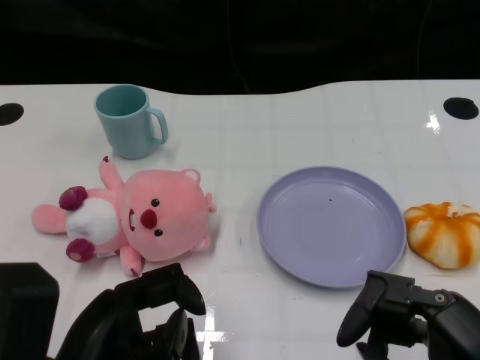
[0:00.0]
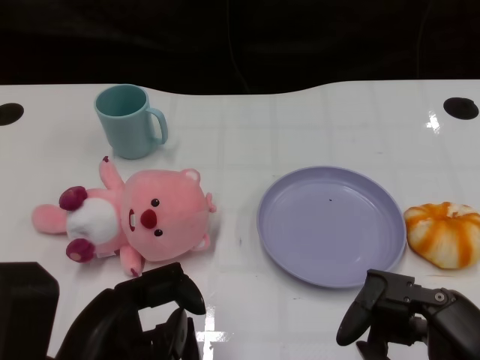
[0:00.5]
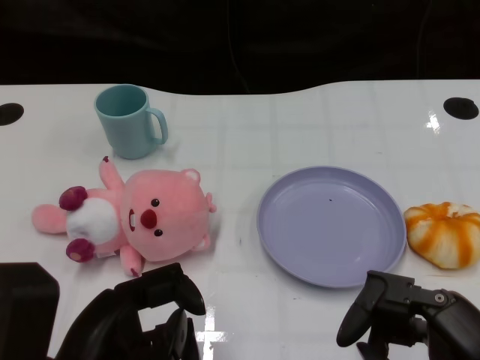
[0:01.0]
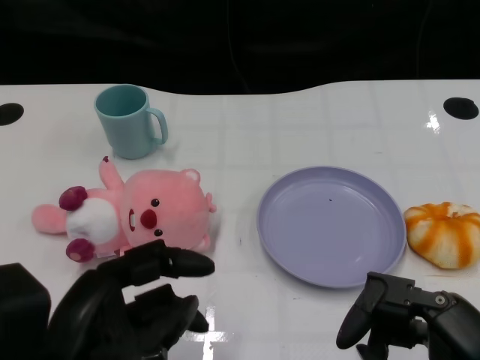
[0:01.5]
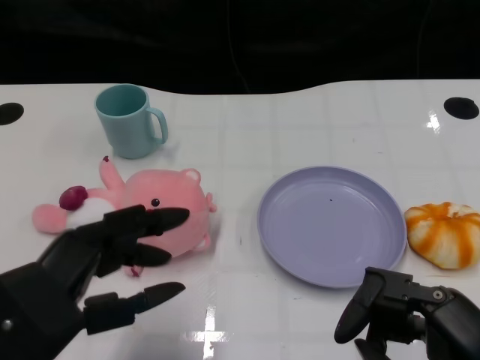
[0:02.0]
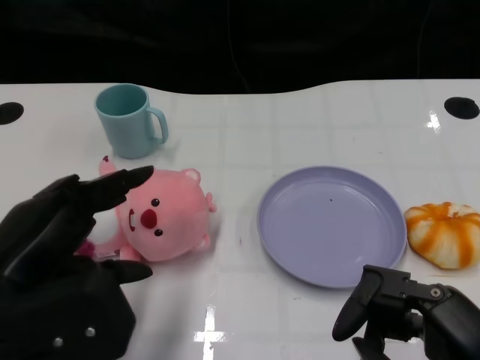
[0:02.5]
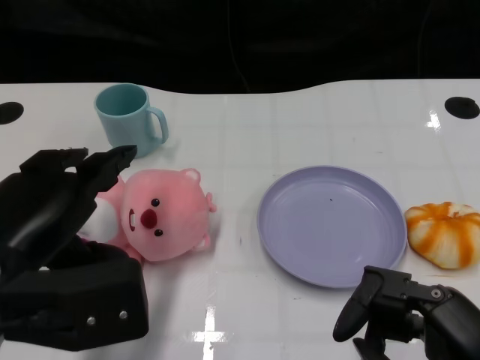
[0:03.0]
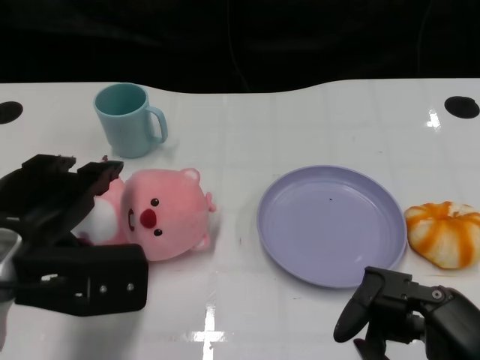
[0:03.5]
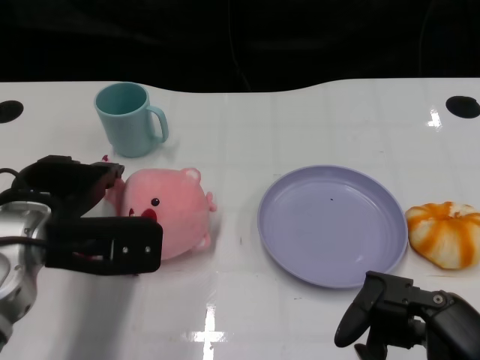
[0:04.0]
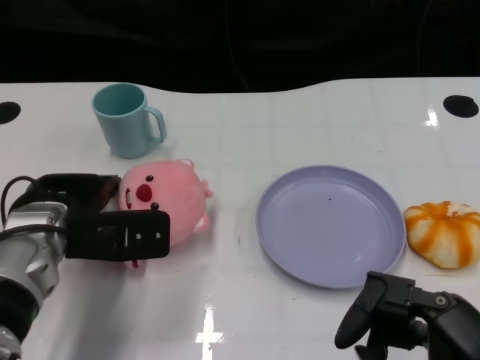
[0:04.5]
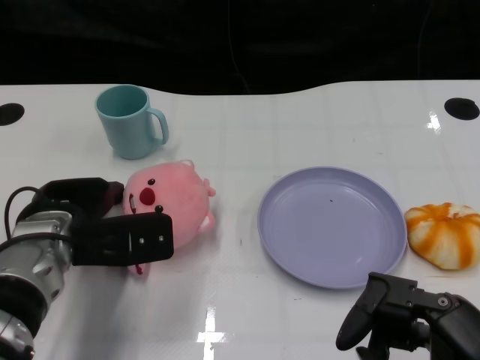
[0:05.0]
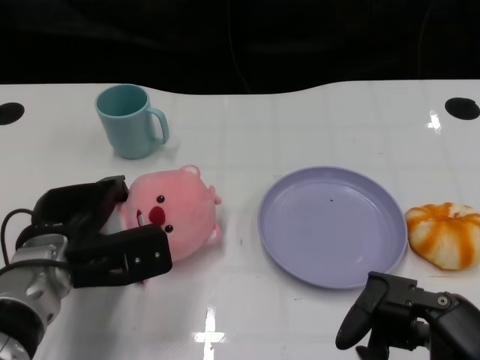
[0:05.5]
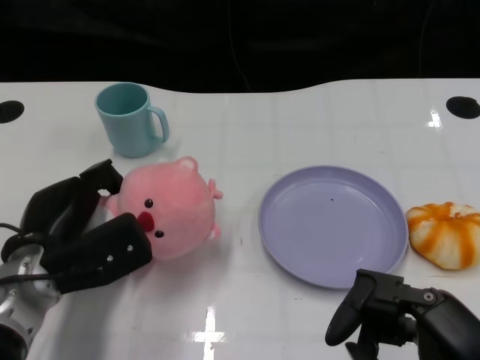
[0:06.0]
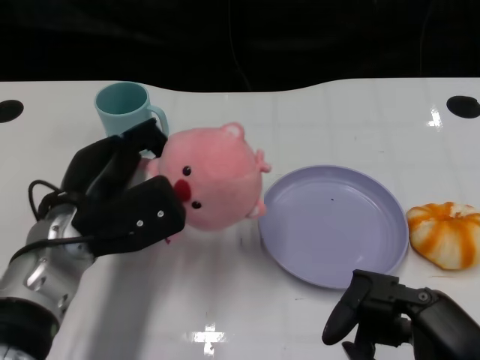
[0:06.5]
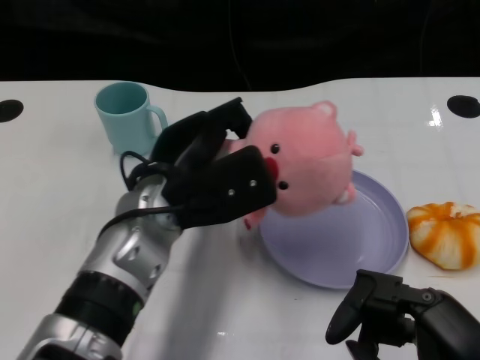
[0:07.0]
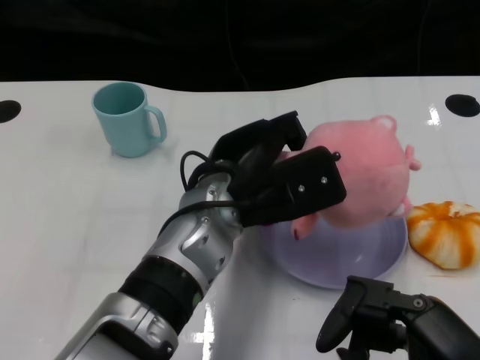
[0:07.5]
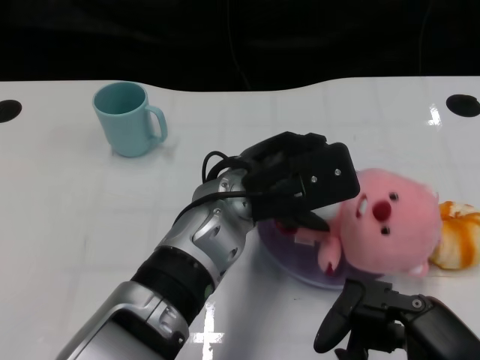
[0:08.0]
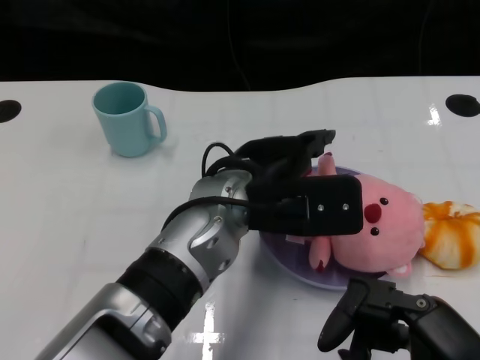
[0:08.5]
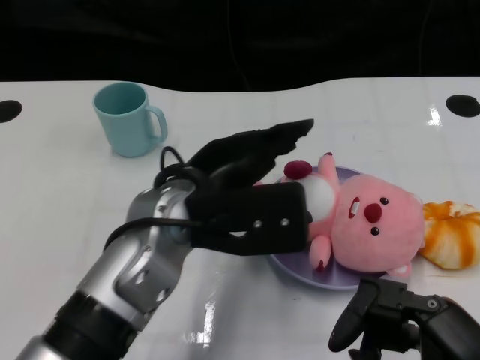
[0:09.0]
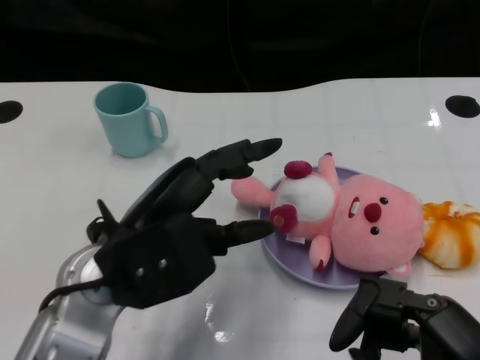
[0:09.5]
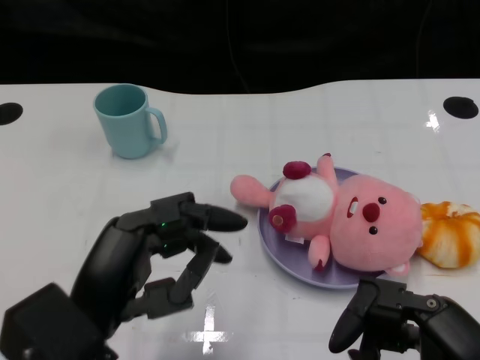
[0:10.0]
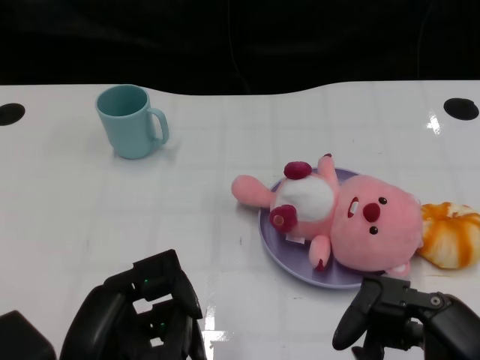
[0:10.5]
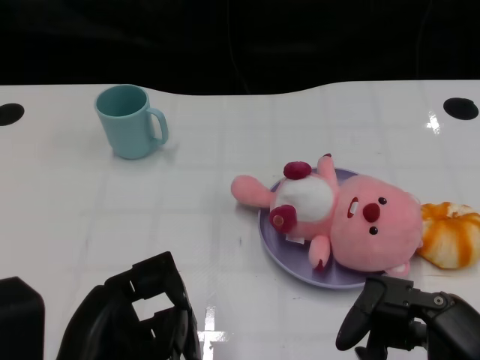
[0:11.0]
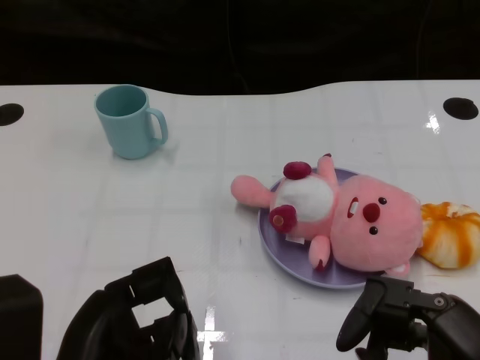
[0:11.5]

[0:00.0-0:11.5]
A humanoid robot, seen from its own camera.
Task of the whole recording: Pick up the doll on one side of the plate and place it into the plate.
Step, 0:01.5 to 0:05.5: Grasp the pink doll with the left gripper.
Step, 0:06.0 to 0:08.5: Place the pink doll into the plate with the left gripper.
0:02.0 to 0:04.0: The left hand travels forward by some 15 cm.
0:04.0 to 0:06.0: The left hand is displaced downward by approximately 5 cm.
0:06.0 to 0:07.5: The left hand is displaced to the right and upward by approximately 20 cm.
0:07.5 to 0:09.5: The left hand goes some 10 cm to the left and backward.
0:09.5 to 0:11.5: The left hand shifts some 10 cm backward.

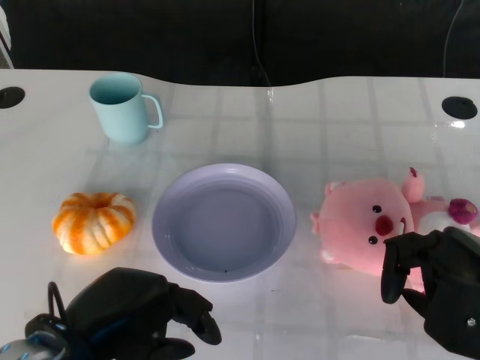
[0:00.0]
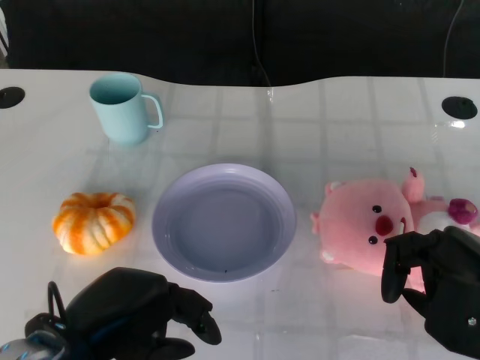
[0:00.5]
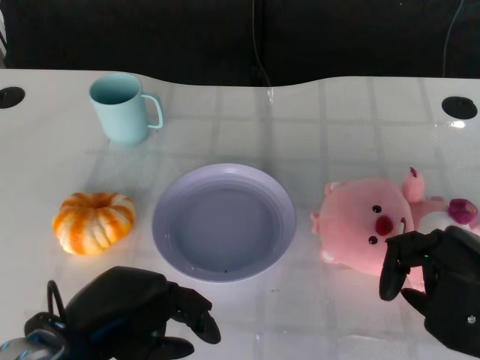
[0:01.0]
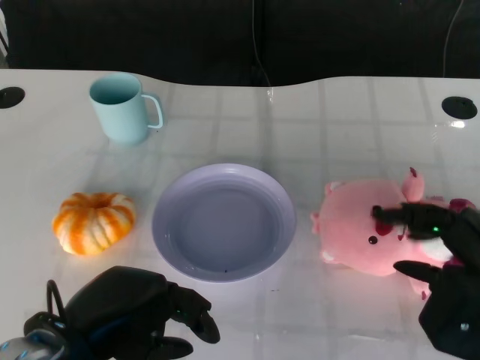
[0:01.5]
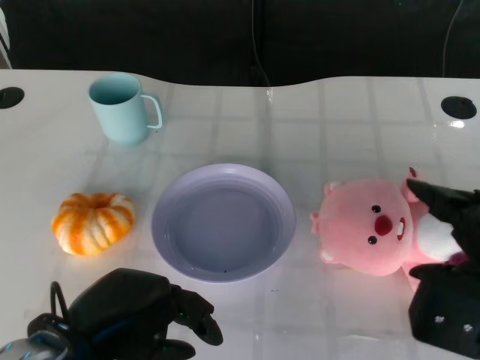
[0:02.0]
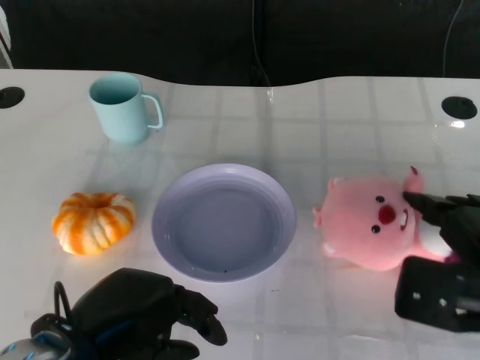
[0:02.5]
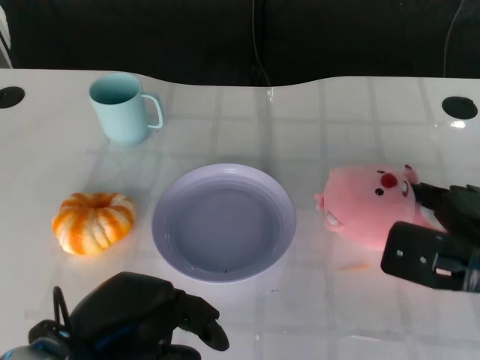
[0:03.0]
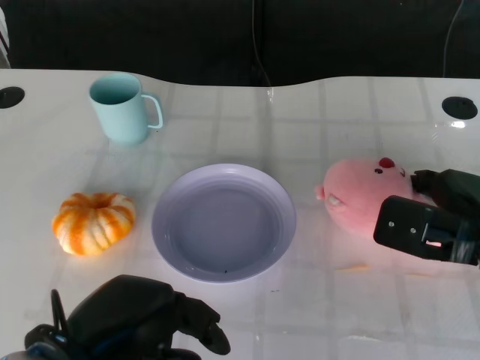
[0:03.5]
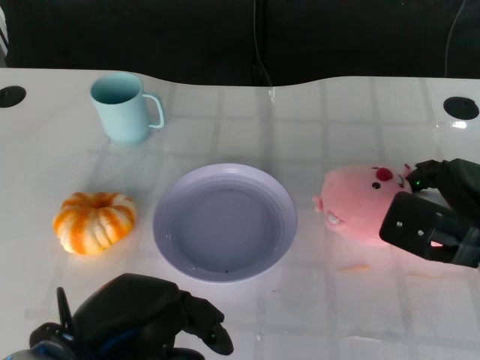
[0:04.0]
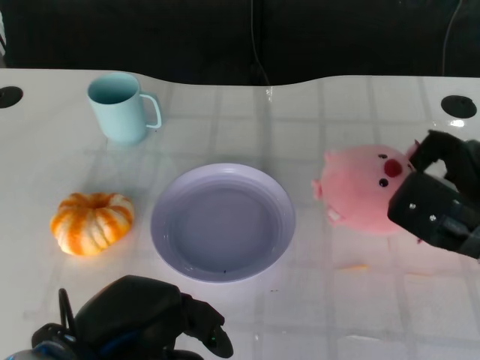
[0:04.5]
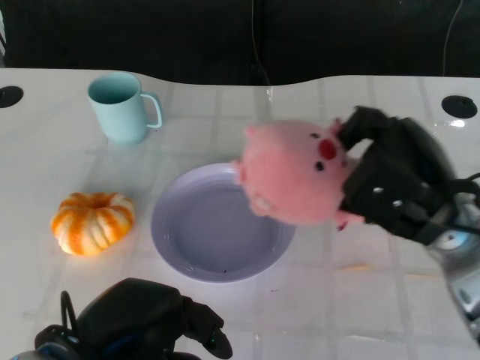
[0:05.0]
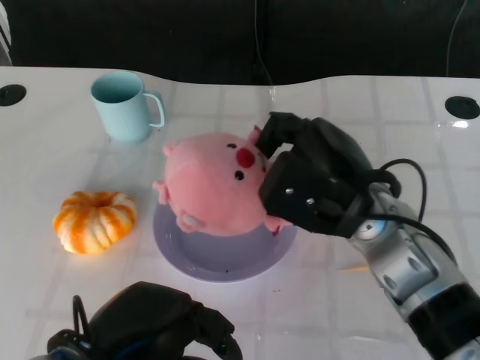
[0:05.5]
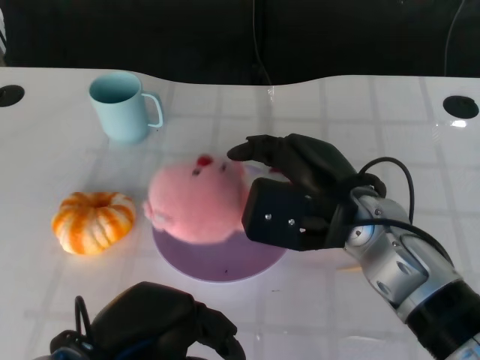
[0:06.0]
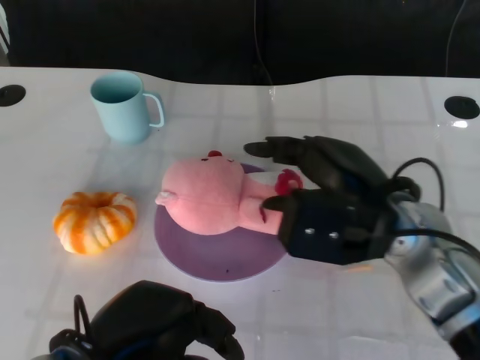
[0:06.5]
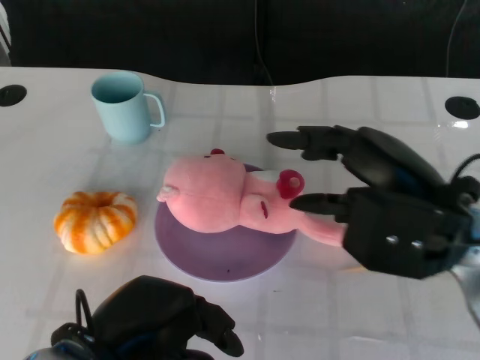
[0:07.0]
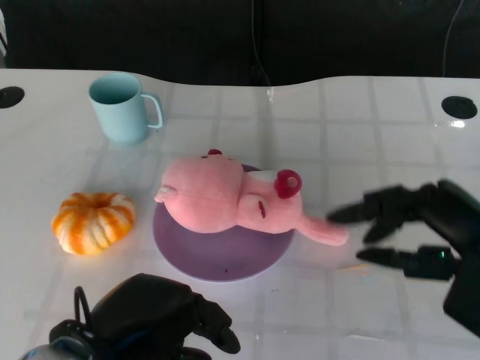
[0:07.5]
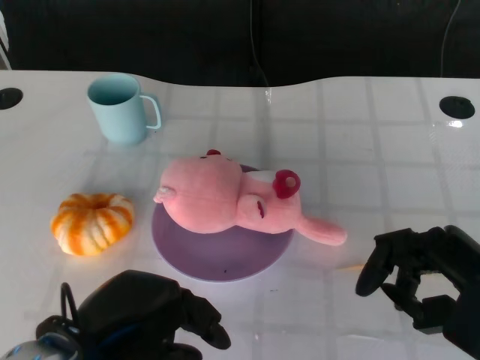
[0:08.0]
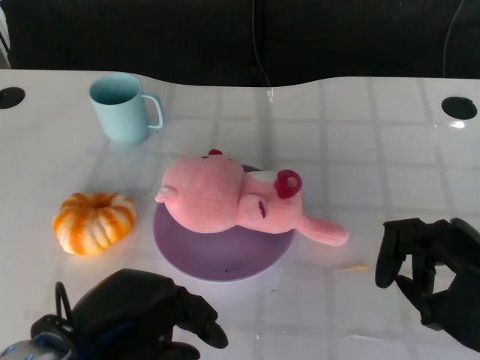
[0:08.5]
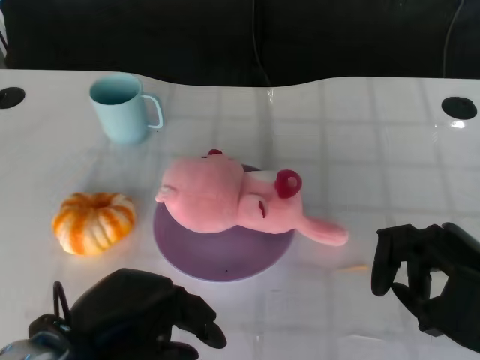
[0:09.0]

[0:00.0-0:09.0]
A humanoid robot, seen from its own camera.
Task of the whole recording: Pick up the doll on the other side of the plate and place it into the plate.
Step, 0:01.0 to 0:04.5: Grasp the pink doll with the right gripper.
Step, 0:05.0 to 0:06.5: Place the pink doll into the plate with the right gripper.
0:02.0 to 0:04.5: The right hand moves forward, approximately 10 cm.
0:04.5 to 0:07.0: The right hand travels upward and to the left by roughly 10 cm.
0:07.0 to 0:09.0: The right hand is displaced to the right, backward and downward by about 10 cm.
